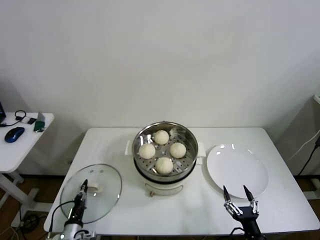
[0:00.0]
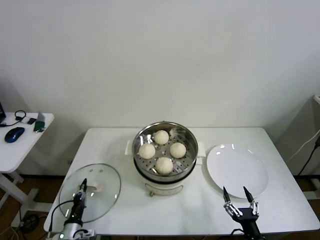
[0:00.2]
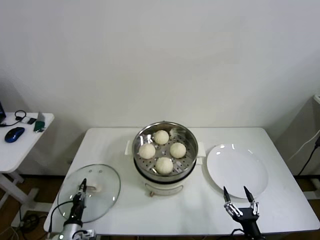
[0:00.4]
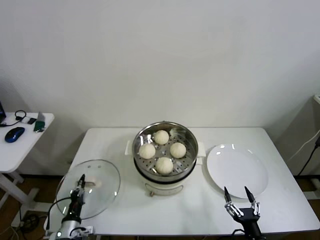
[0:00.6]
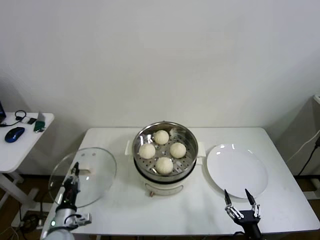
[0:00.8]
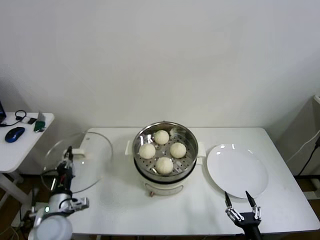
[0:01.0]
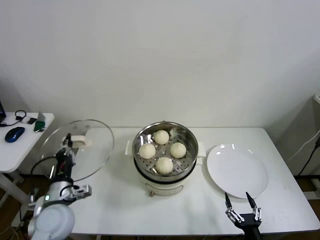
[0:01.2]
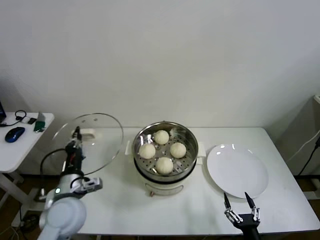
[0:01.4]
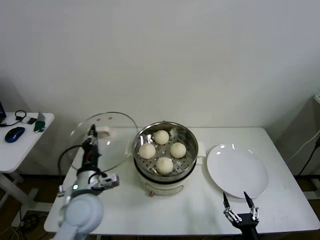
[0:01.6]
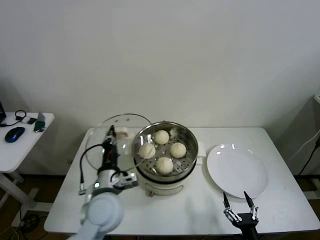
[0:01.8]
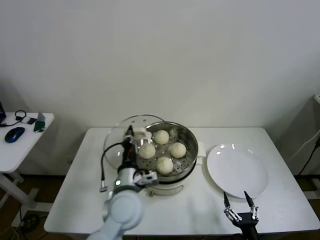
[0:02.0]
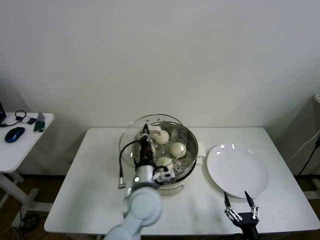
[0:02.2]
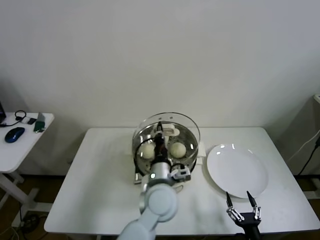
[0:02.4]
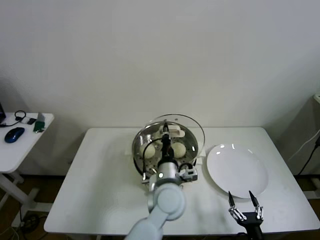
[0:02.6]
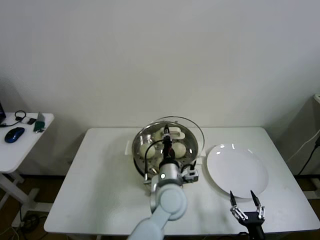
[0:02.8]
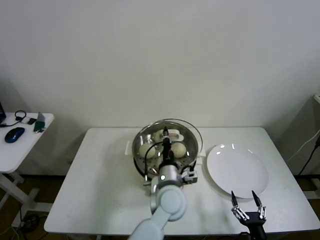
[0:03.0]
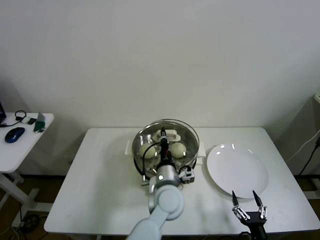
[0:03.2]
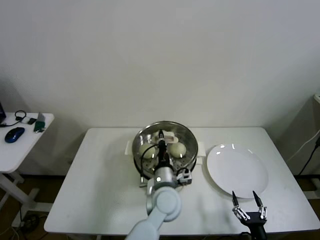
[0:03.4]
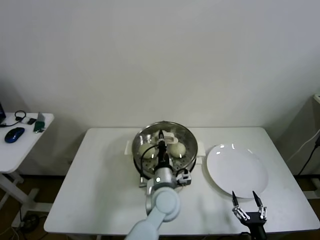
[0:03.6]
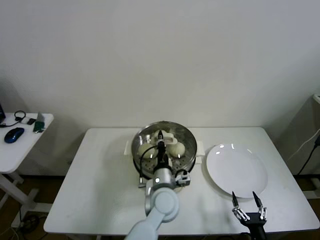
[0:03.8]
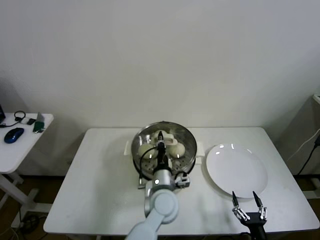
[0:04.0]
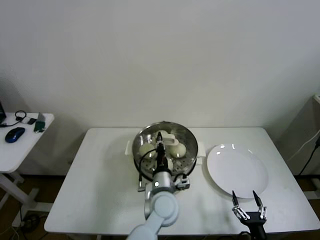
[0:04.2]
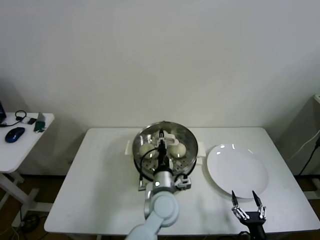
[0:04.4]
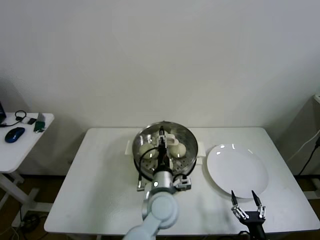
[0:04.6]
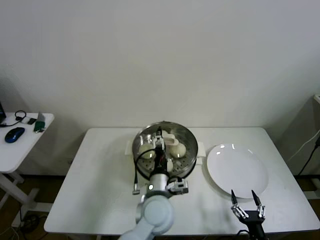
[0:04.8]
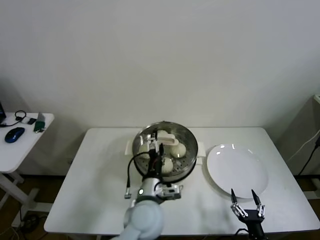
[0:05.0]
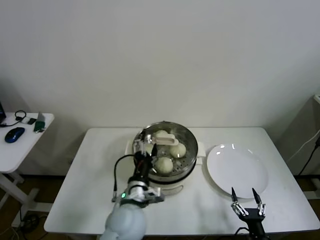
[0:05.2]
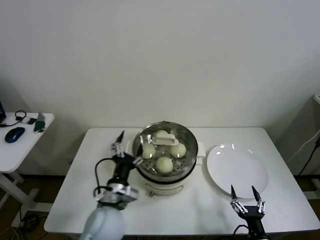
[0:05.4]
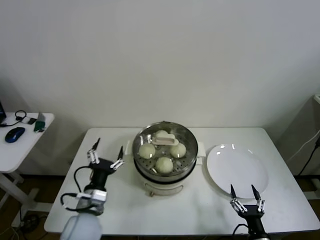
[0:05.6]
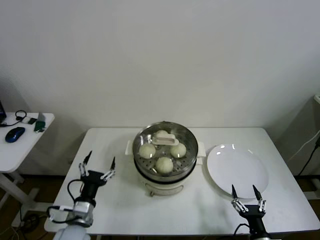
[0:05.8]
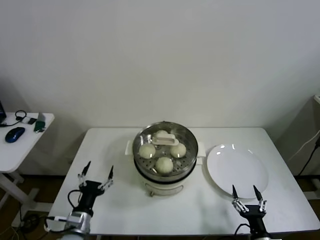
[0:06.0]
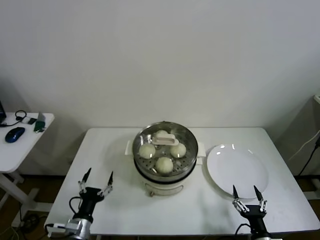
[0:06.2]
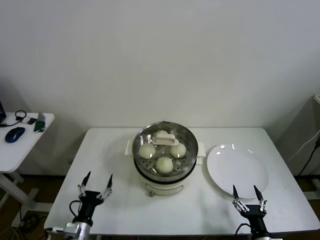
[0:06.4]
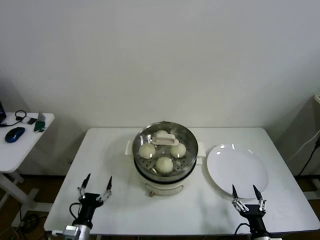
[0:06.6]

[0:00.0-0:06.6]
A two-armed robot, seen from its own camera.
Step, 0:00.2 to 0:04.2: Place the pot lid on the steamer with left gripper.
0:00.0 to 0:01.6: The left gripper is displaced upward and to the right by roughly 25 cm.
0:01.6 to 0:03.2: The left gripper is displaced to the right by approximately 25 cm.
0:03.2 to 0:05.0: The left gripper is displaced to the left by some 5 cm, and opens up.
0:05.0 to 0:06.6: The left gripper heads to the left and downward, covering approximately 30 cm.

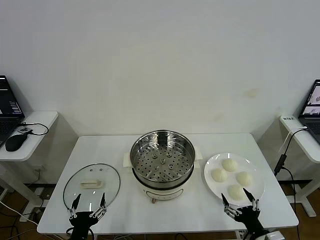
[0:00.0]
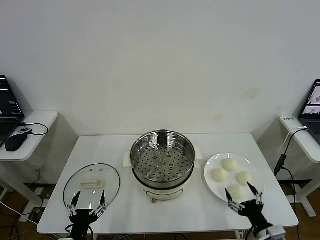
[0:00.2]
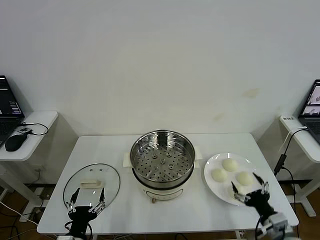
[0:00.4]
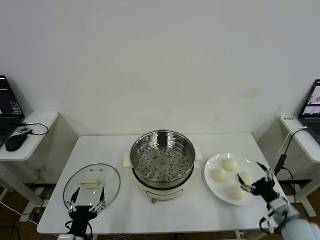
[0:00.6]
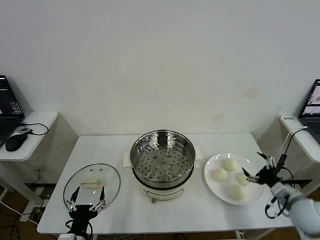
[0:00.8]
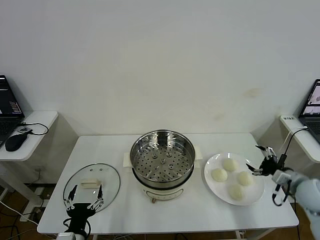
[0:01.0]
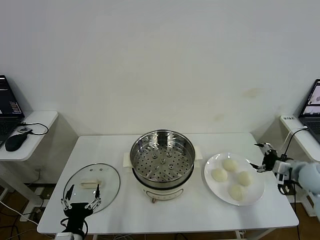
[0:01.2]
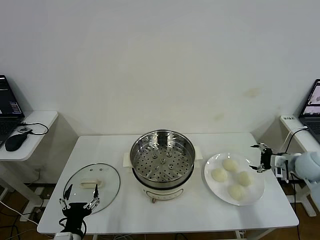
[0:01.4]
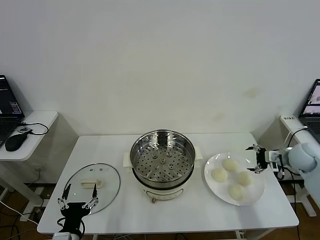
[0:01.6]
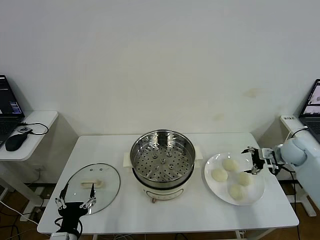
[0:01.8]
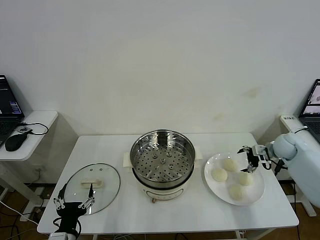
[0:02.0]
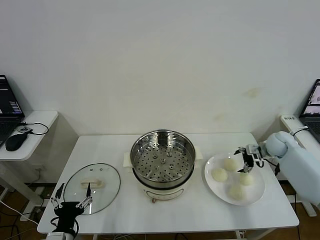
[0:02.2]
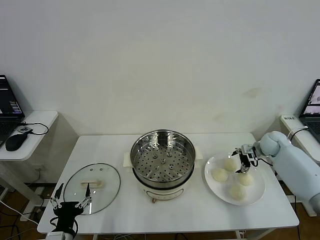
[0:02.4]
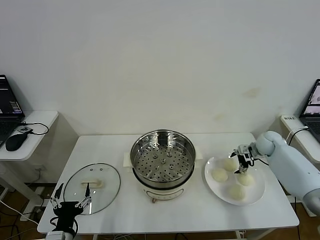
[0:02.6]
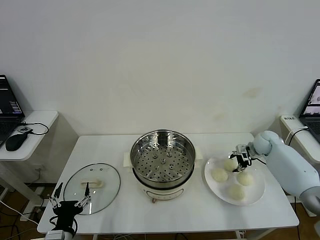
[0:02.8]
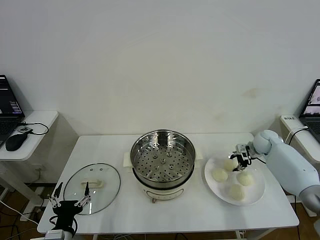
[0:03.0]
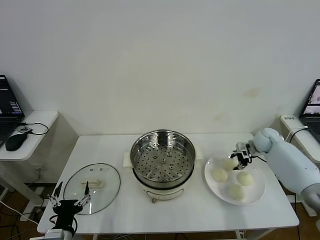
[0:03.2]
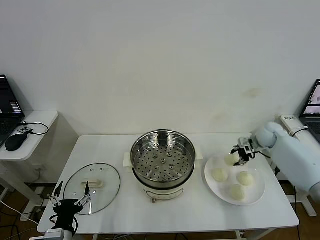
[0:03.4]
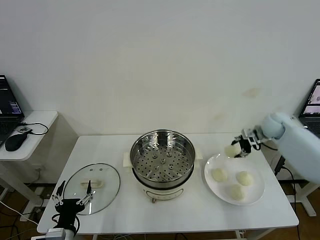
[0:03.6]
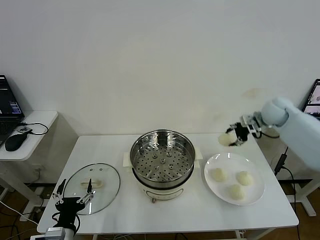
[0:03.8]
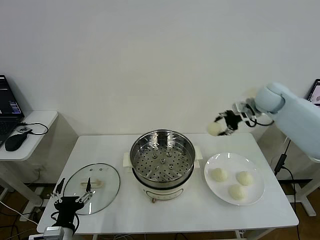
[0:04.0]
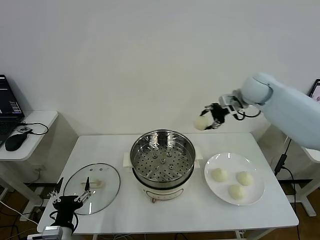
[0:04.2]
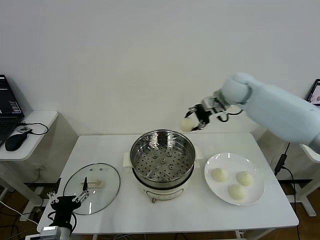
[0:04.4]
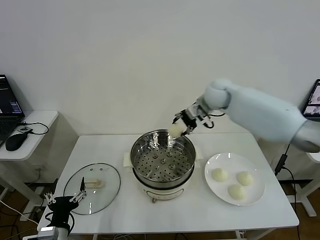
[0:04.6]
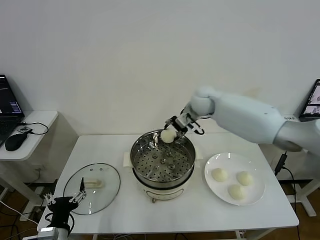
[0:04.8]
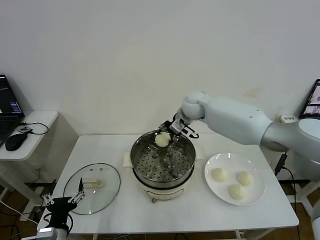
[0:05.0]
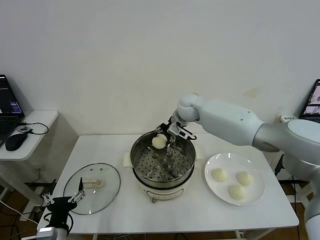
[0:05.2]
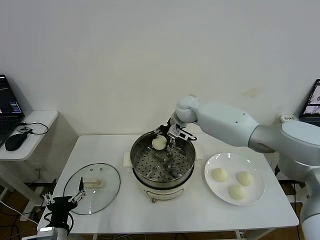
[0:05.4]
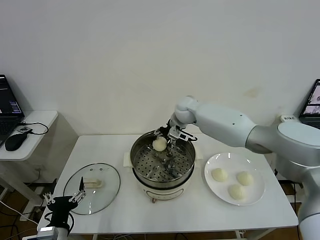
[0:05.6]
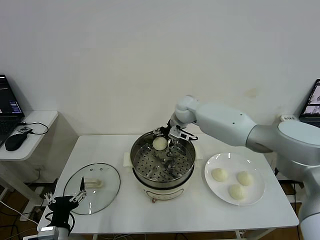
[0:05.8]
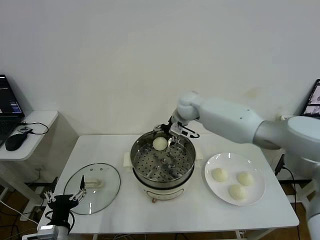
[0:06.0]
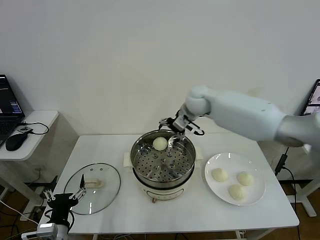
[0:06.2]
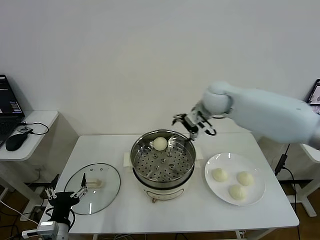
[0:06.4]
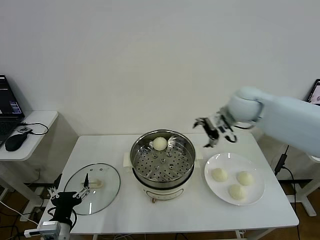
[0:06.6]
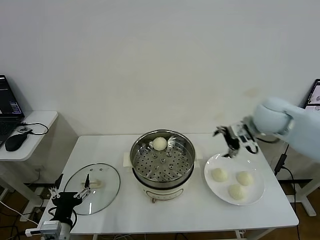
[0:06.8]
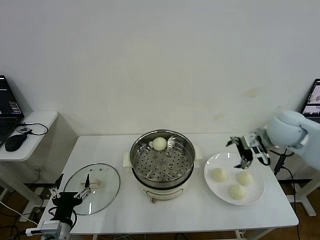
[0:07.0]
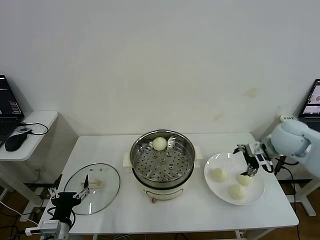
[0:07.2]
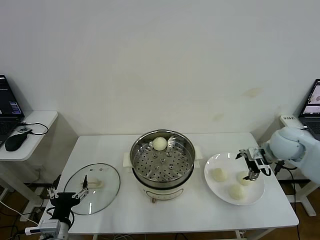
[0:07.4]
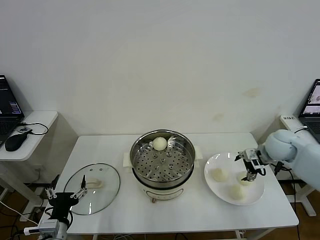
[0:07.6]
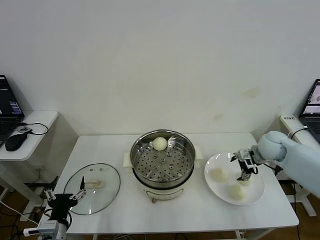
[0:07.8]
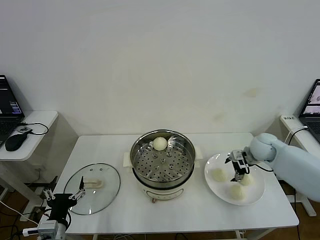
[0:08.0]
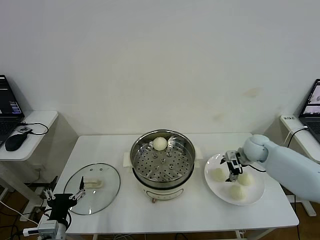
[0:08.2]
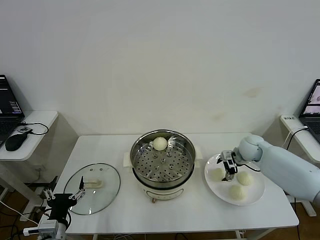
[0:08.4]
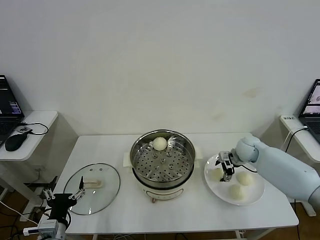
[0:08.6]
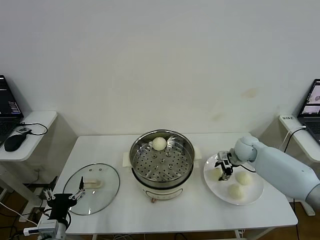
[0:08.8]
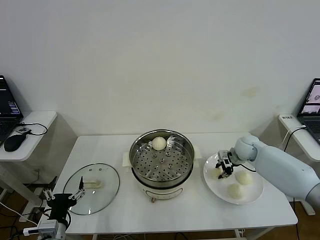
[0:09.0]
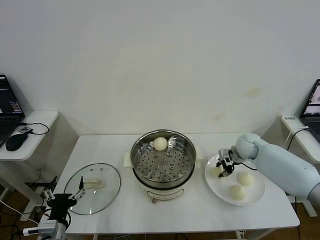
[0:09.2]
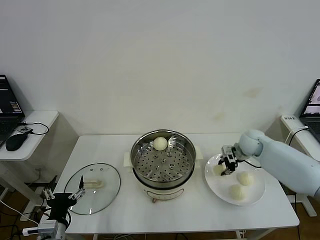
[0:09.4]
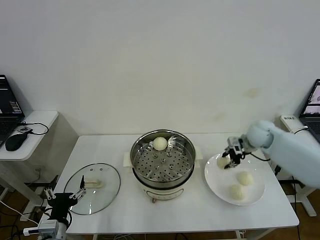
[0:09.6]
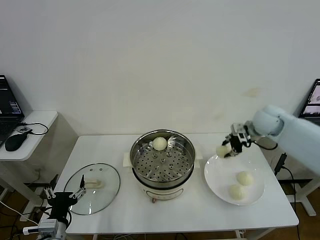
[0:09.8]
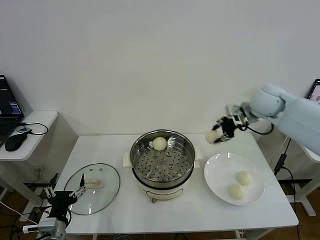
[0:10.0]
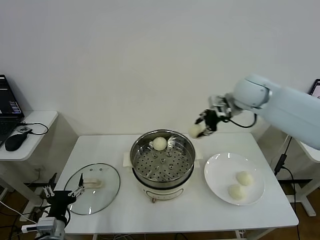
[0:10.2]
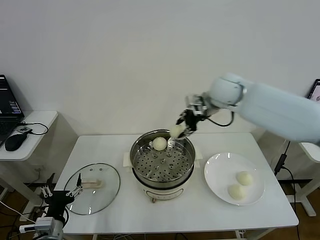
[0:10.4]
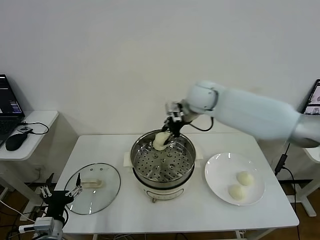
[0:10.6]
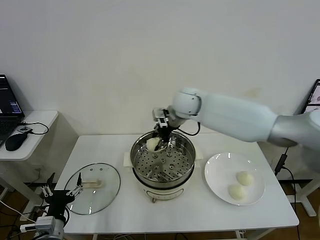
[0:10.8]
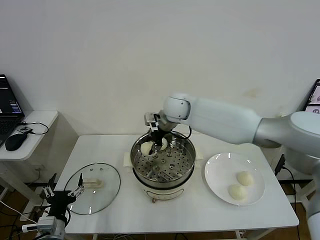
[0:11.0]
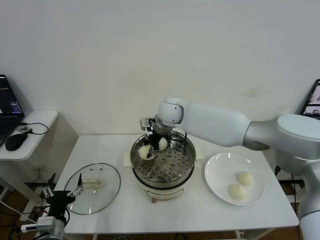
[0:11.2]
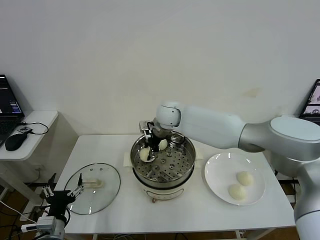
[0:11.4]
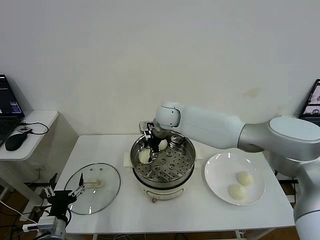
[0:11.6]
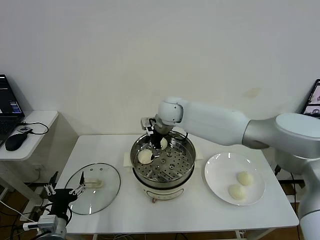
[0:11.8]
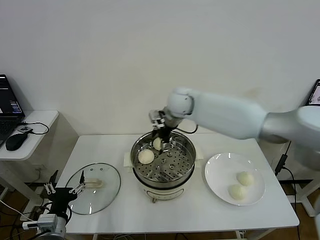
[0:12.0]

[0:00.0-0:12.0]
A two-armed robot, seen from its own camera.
Step, 0:00.0 to 0:03.0: Grasp the baozi in the plate with right gripper.
Step, 0:03.2 to 0:05.8: Place the baozi on the steamer with right gripper.
Step, 0:06.0 to 0:09.0: Grasp the baozi in the plate with right gripper.
Step, 0:09.2 to 0:11.6: Place the baozi on the steamer with right gripper.
0:01.6 to 0:03.0: The right gripper shifts approximately 15 cm forward, to the left and downward, and closes its fingers.
0:03.0 to 0:04.4: The right gripper goes about 30 cm upward and to the left.
0:04.4 to 0:06.0: The right gripper goes roughly 10 cm to the left and downward, and opens its fingers.
0:06.0 to 0:07.6: The right gripper heads to the right and backward, covering approximately 30 cm.
0:07.6 to 0:09.0: The right gripper goes about 10 cm downward, forward and to the left, and closes its fingers.
0:09.0 to 0:10.4: The right gripper heads upward and to the left, covering roughly 30 cm.
0:10.4 to 0:12.0: The right gripper moves to the left, about 10 cm, and opens.

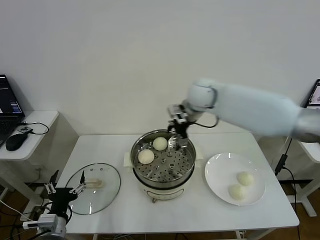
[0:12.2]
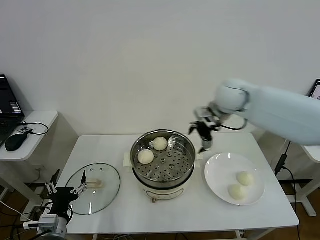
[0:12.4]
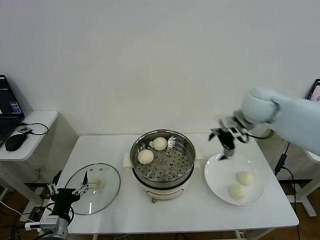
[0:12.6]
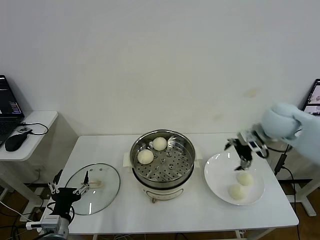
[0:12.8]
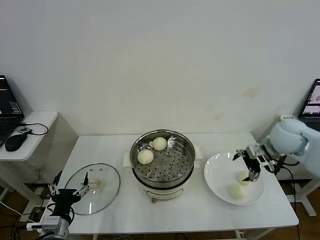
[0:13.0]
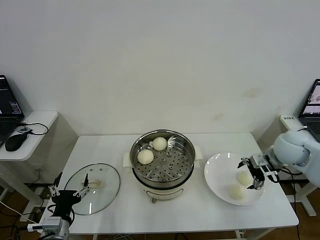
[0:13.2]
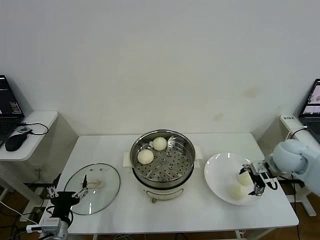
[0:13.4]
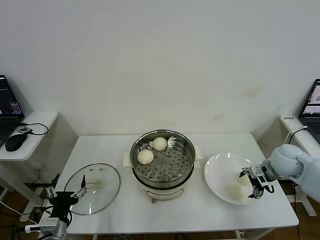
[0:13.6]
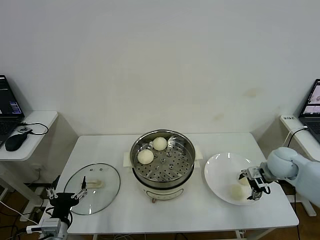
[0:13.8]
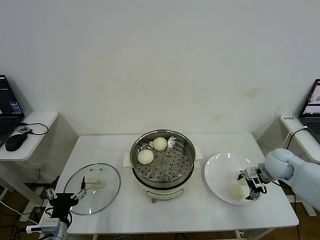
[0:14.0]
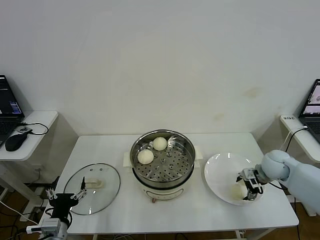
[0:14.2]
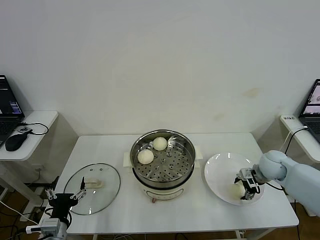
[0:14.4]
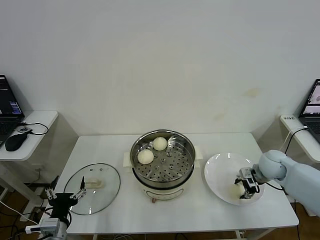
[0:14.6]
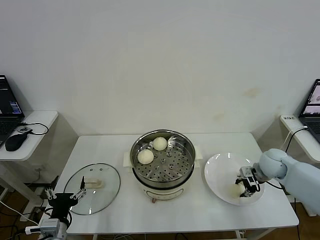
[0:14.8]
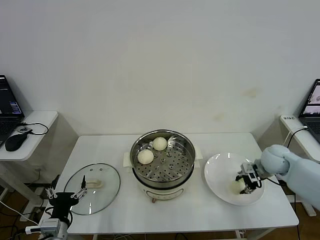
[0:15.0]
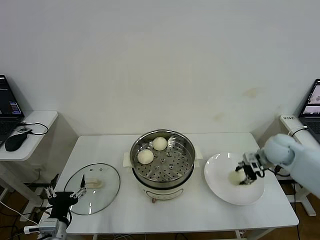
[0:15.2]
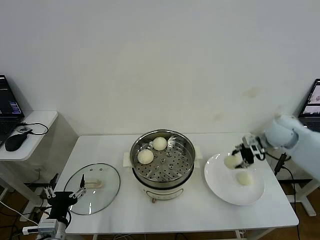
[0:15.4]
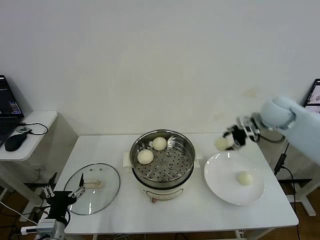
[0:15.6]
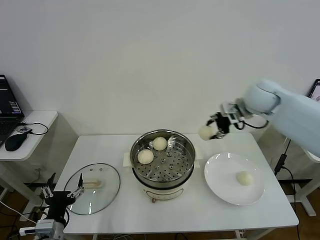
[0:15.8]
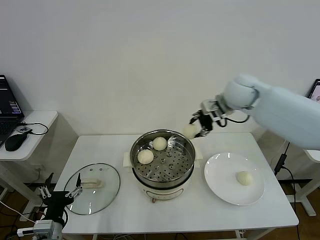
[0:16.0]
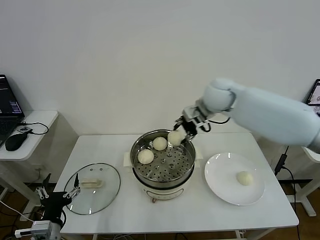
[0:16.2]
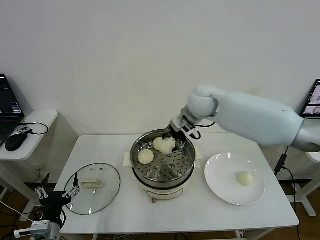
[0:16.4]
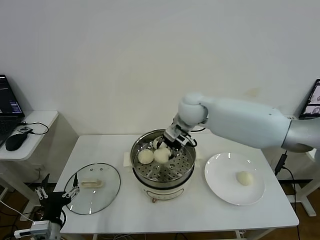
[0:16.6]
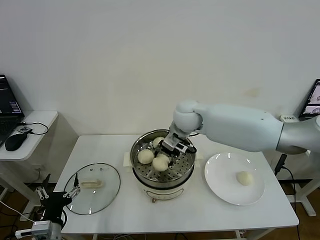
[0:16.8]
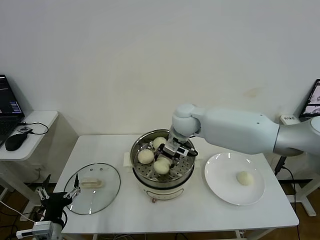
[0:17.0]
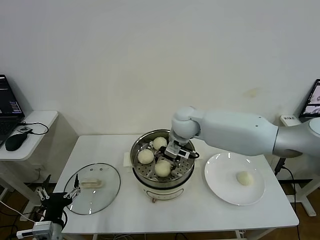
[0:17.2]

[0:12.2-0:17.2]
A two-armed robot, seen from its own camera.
Step, 0:12.2 to 0:14.8: Grasp the baozi in the plate with right gripper.
0:12.2 to 0:13.8: The right gripper travels to the right, downward and backward by approximately 35 cm.
0:13.8 to 0:15.6: The right gripper heads upward and forward, covering roughly 15 cm, and closes.
0:15.6 to 0:17.2: The right gripper heads to the left, covering roughly 25 cm, and opens up.
